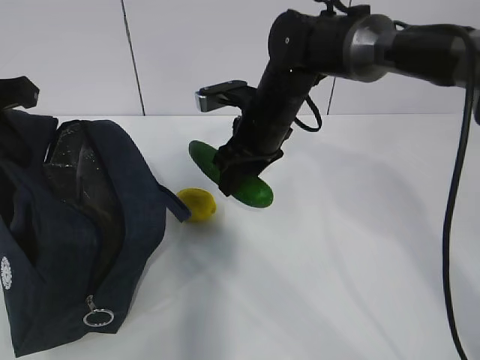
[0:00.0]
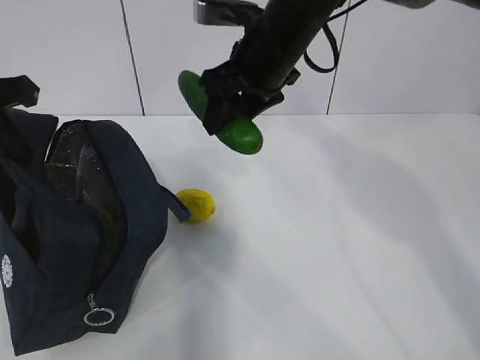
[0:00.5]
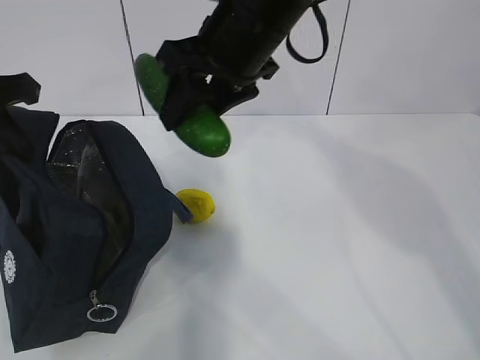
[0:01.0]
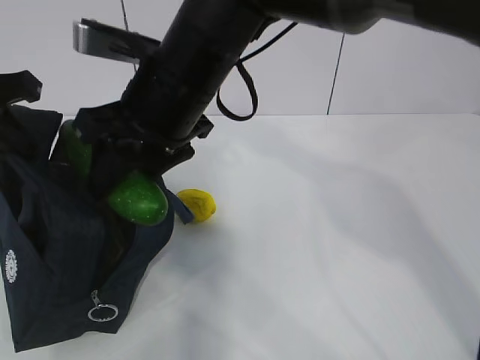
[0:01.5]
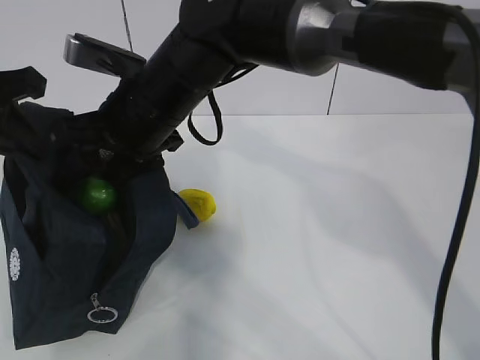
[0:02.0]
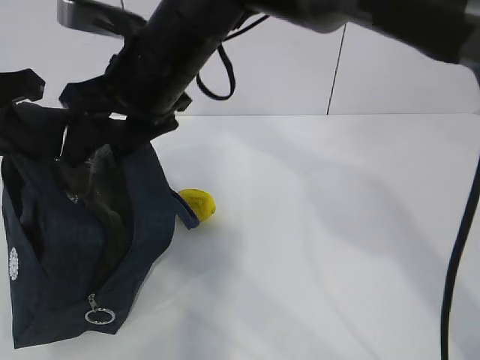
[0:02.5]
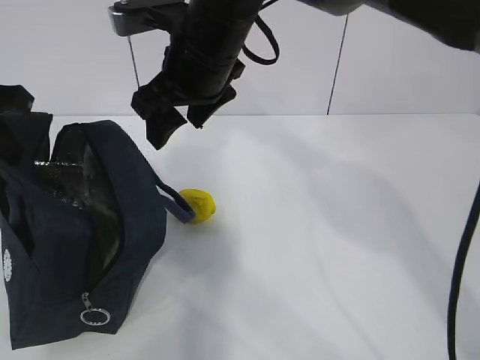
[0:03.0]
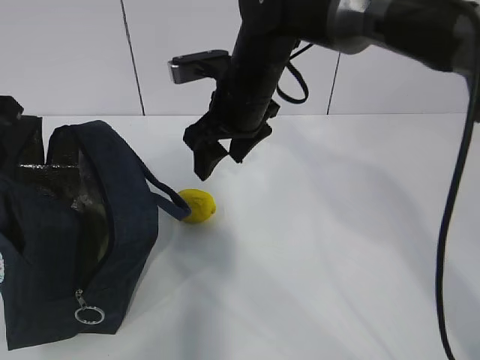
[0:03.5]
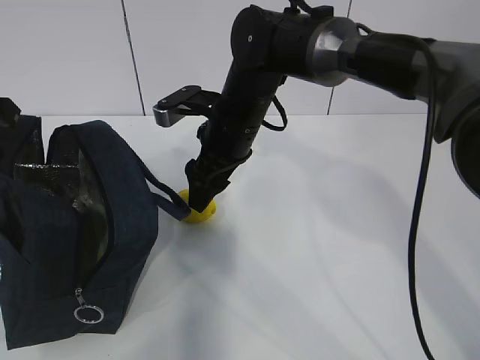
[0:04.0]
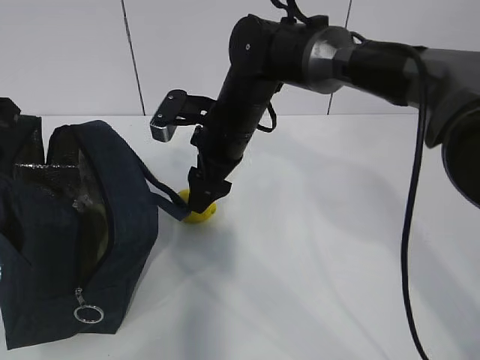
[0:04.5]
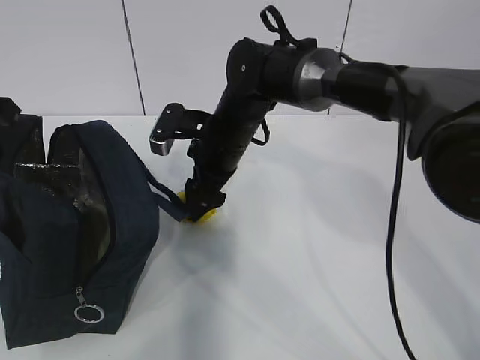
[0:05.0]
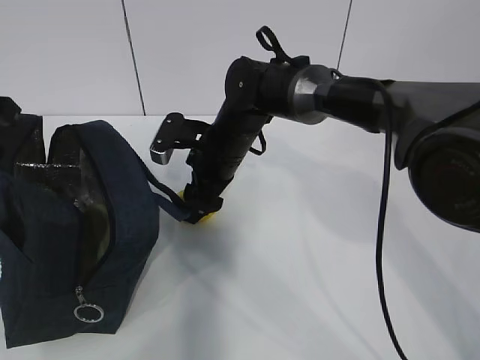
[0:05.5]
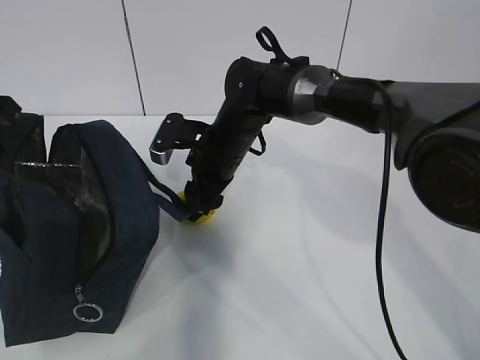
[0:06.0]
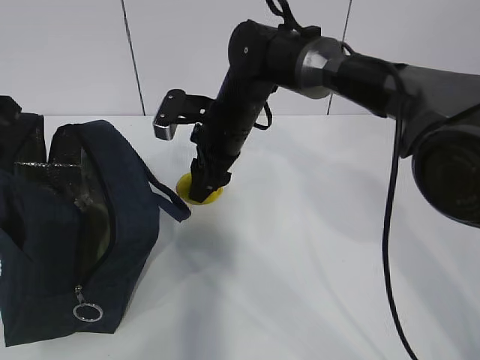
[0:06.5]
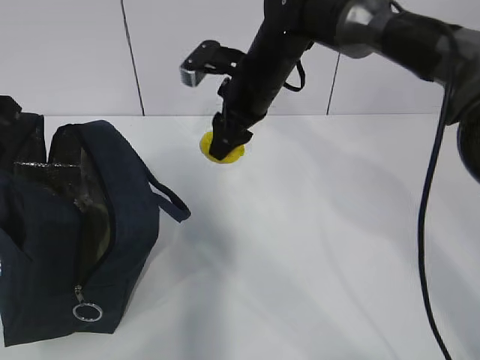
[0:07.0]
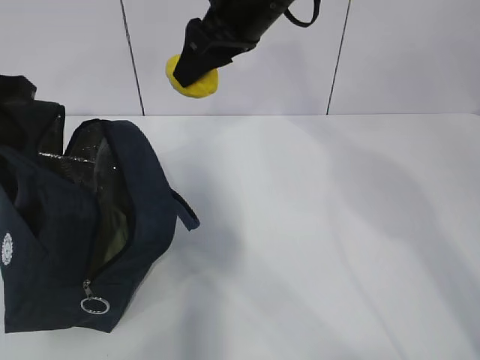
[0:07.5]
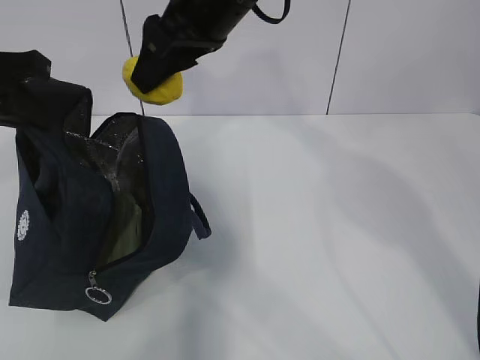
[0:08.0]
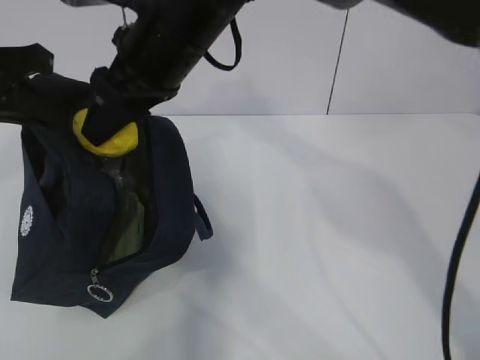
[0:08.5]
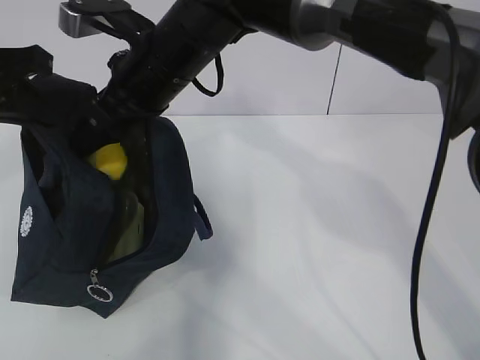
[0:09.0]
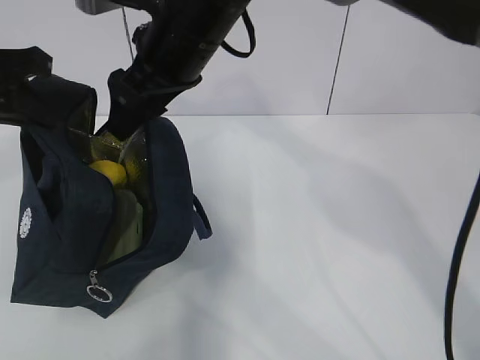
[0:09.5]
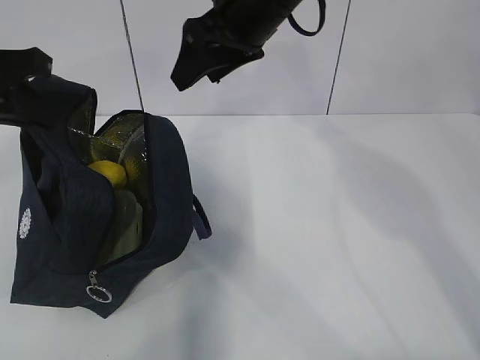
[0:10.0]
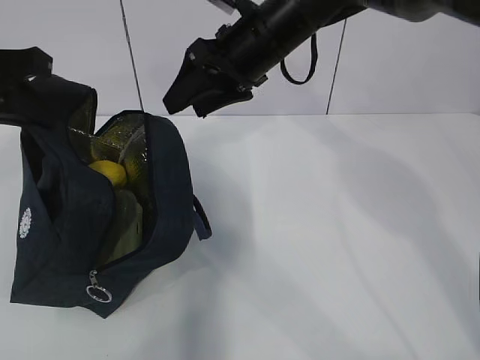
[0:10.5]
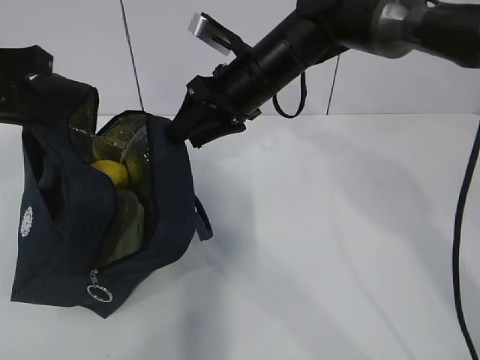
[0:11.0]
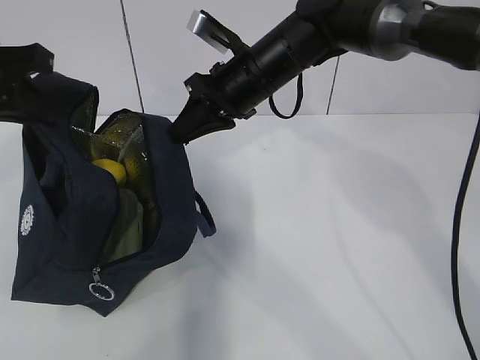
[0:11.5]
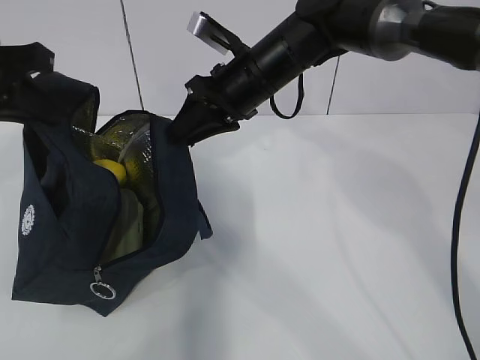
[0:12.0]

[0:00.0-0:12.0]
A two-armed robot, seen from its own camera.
Step, 0:03.0 to 0:05.0: Grab the lunch bag with your right hand.
Step, 0:06.0 to 0:11.0: Move the lunch bag to the right.
0:00.0 to 0:02.0: The right gripper shifts approximately 15 cm to the left, backward and upward.
0:02.0 to 0:04.0: The right gripper moves to the right, forward and downward, approximately 10 cm.
0:04.0 to 0:06.0: The right gripper moves downward, some 5 cm.
0:06.0 to 0:08.0: The right gripper heads upward, covering about 20 cm.
0:08.0 to 0:10.0: The right gripper changes place by some 5 cm.
0:10.0 to 0:12.0: The right gripper goes about 10 cm downward, and closes up.

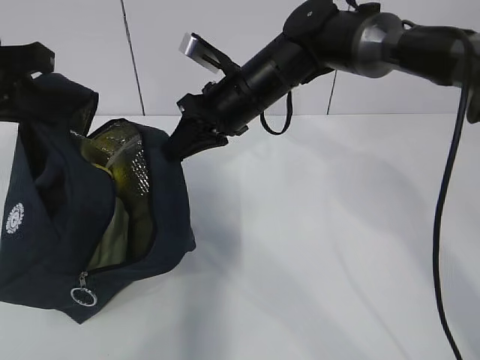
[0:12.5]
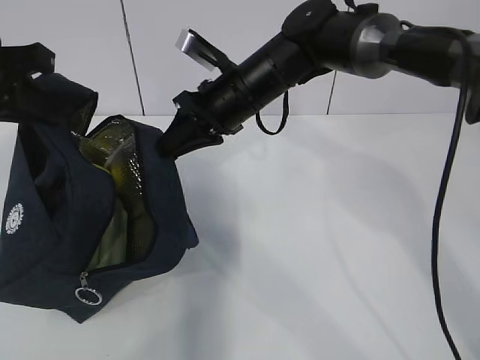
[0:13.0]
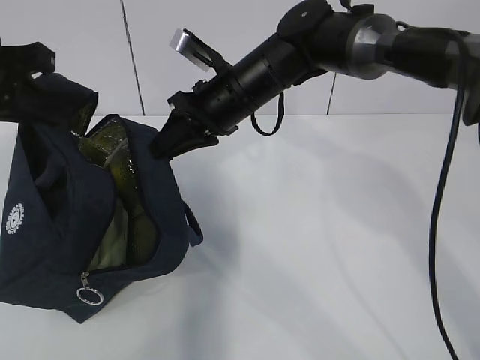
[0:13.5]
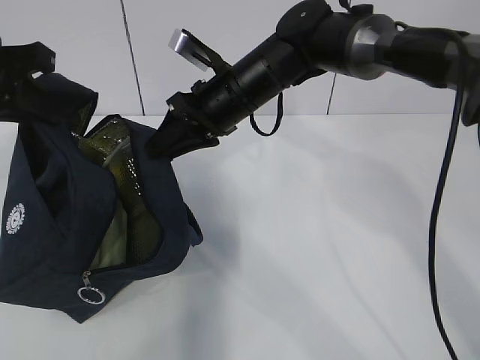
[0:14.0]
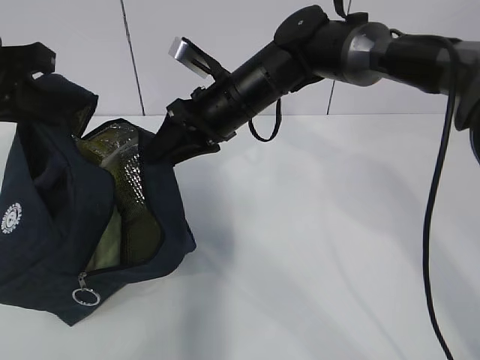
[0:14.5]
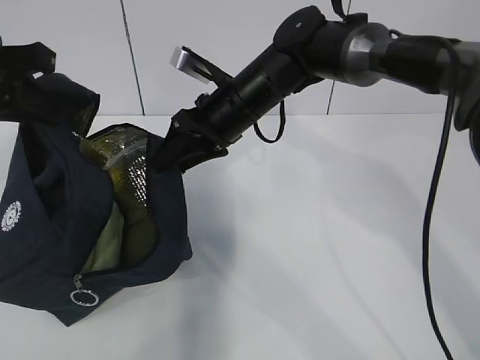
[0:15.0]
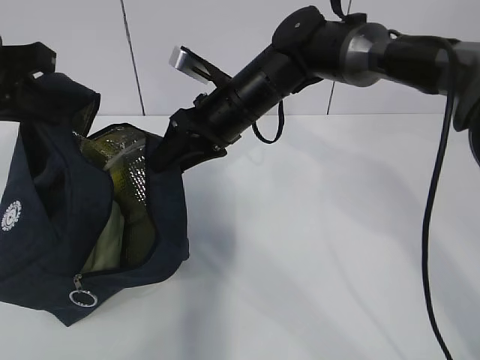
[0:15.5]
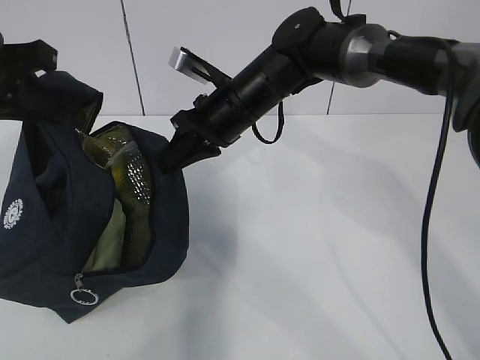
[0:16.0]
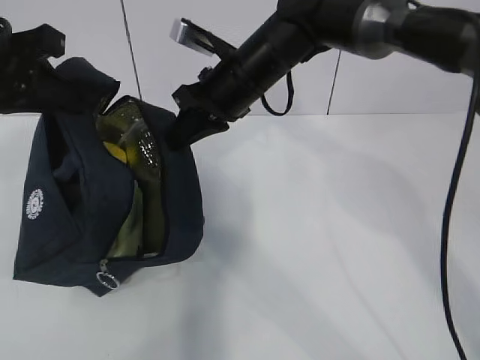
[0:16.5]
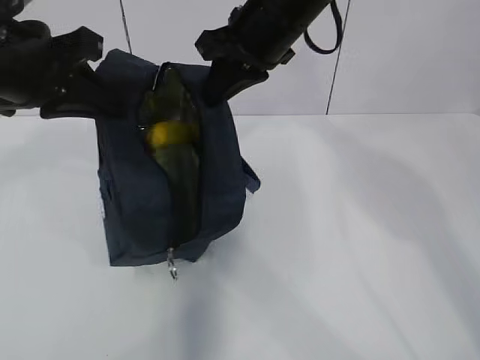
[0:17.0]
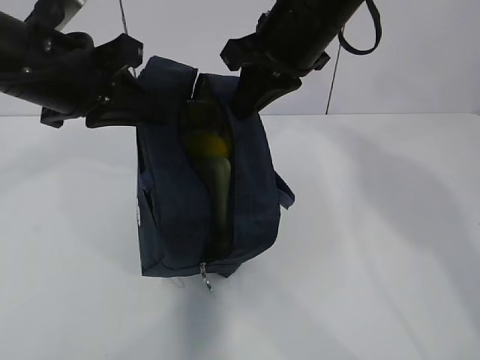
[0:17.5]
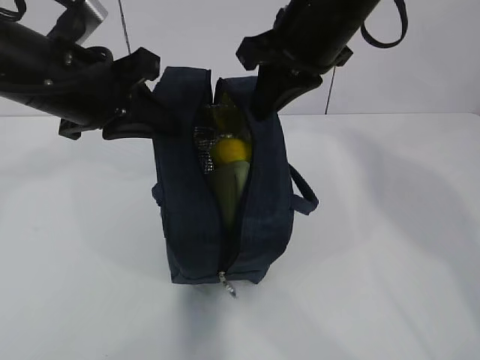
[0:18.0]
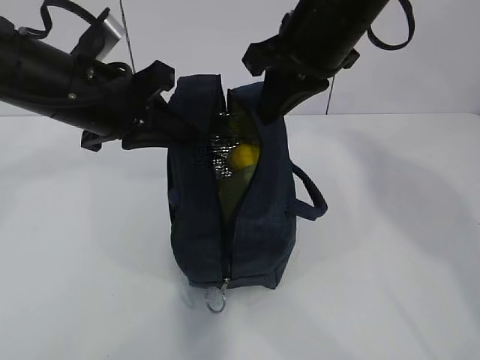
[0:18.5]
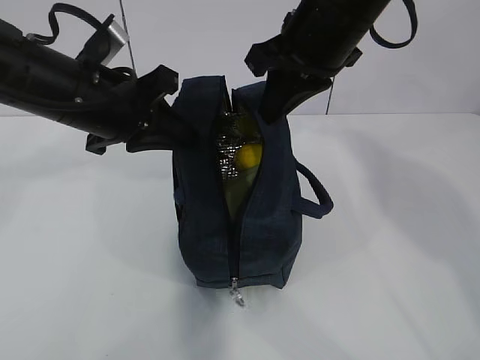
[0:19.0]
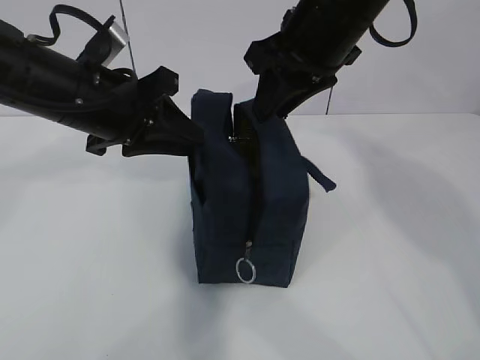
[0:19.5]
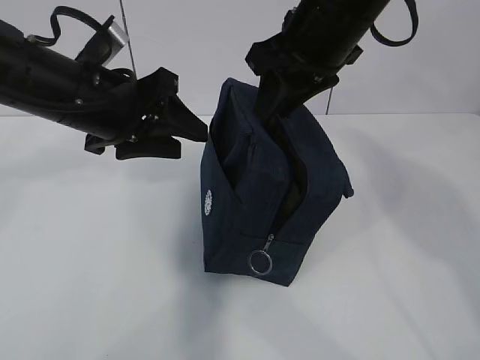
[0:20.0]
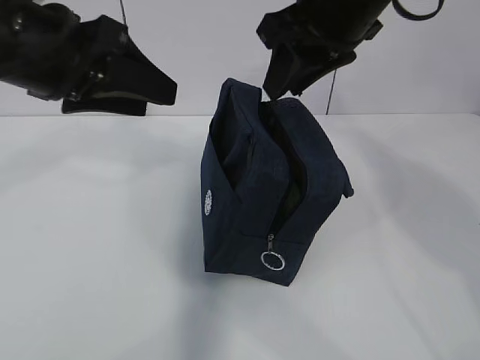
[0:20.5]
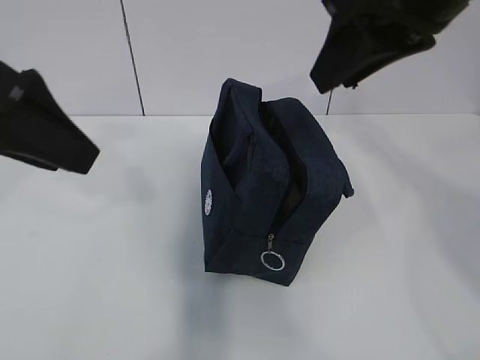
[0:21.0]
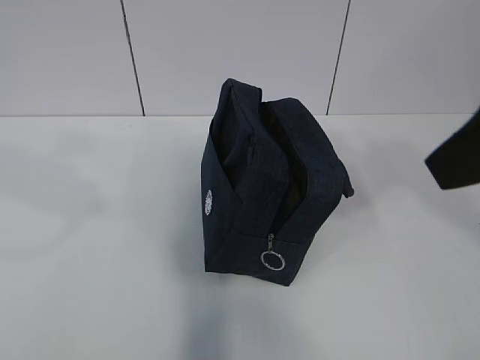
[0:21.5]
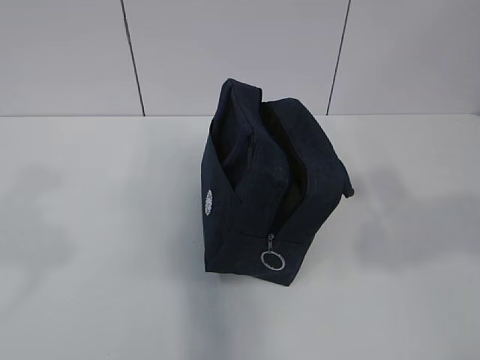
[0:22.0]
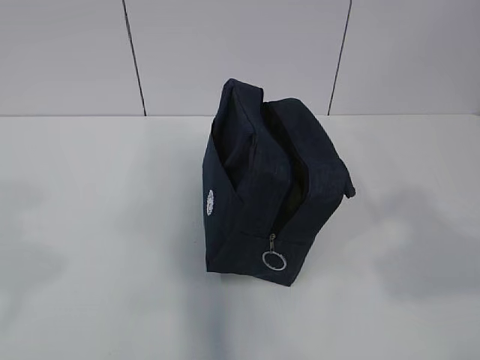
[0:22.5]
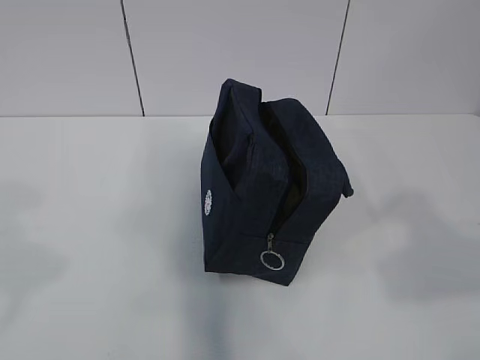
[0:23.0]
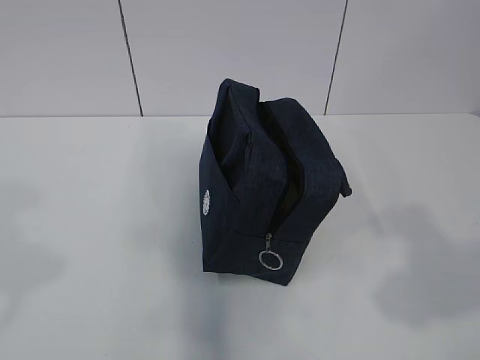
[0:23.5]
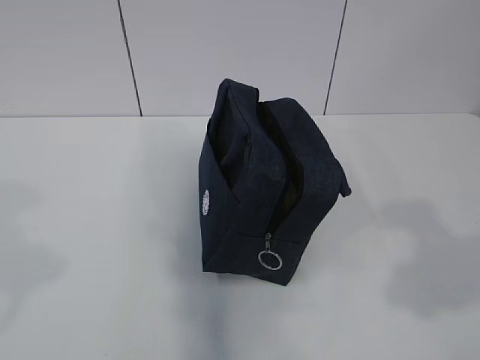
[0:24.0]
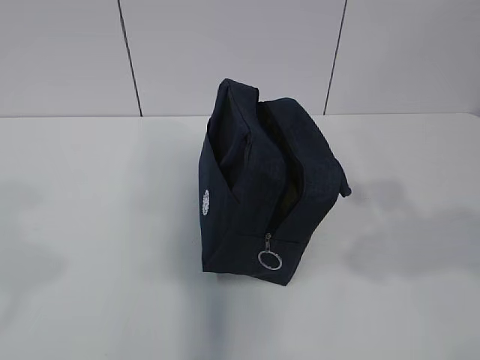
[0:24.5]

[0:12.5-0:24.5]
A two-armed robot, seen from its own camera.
0:12.5 to 0:14.5: The right gripper opens its fingers.
0:14.5 to 0:16.5: The right gripper closes up.
0:16.5 to 0:18.5: The right gripper is displaced upward, backward and to the right by roughly 15 cm; the left gripper moves to the right and downward, some 10 cm.
0:18.5 to 0:20.5: The left gripper heads upward, covering about 5 cm, and opens its fingers; the right gripper opens.
0:20.5 to 0:22.5: The left gripper is displaced backward and to the left by about 25 cm. Meanwhile the right gripper travels backward and to the right by approximately 35 cm.
0:22.5 to 0:24.5: The right gripper heads forward, covering some 5 cm.

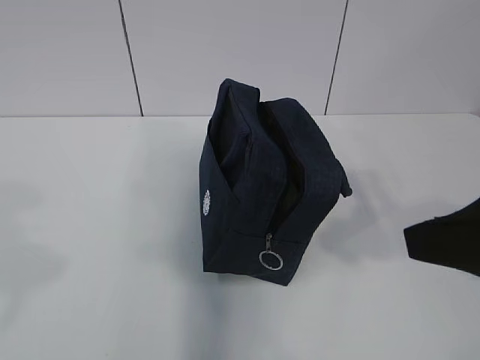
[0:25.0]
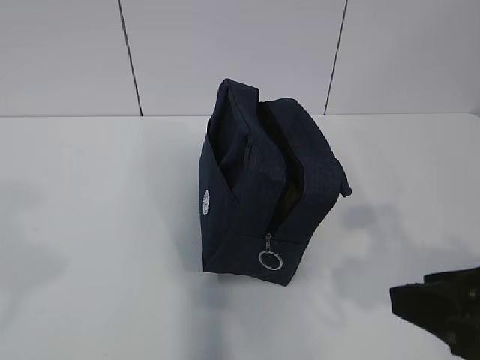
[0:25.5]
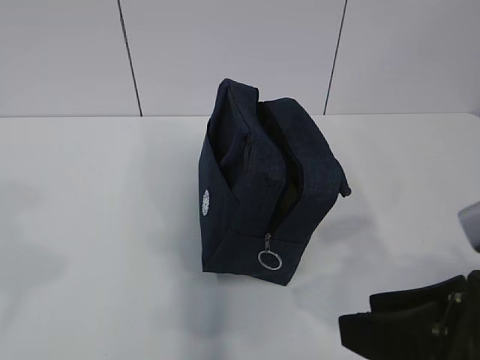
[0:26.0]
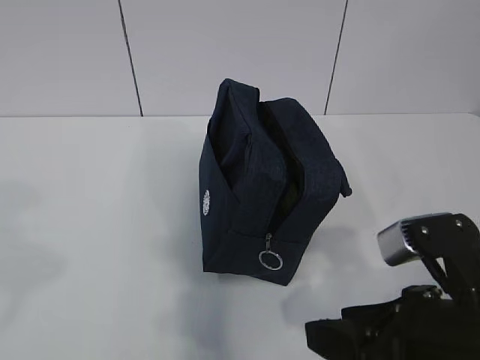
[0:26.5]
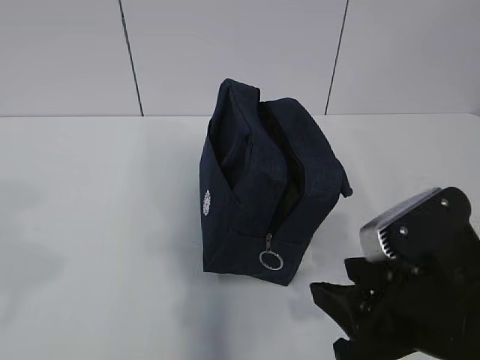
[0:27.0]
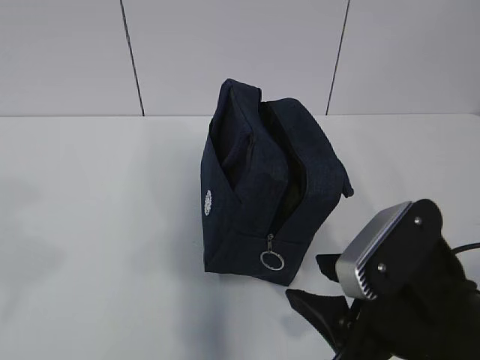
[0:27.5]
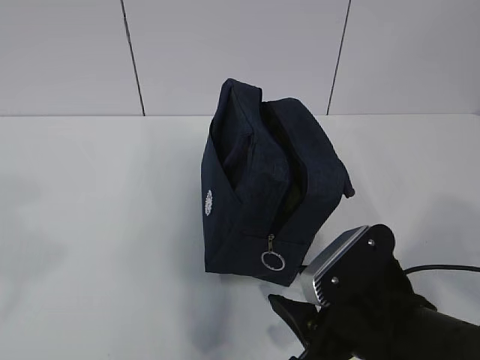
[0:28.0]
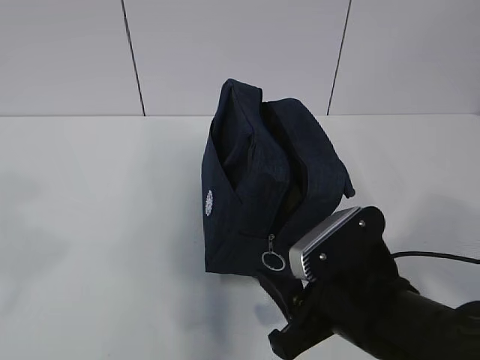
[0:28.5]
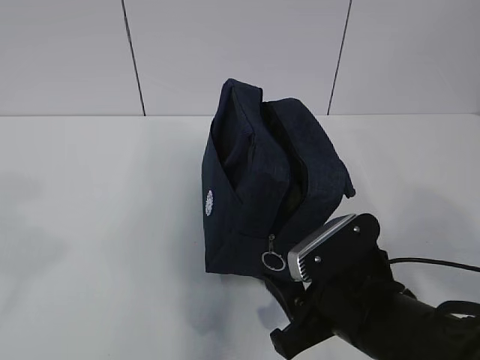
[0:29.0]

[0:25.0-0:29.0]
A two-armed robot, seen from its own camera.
0:25.0 to 0:27.0: The right gripper heads downward and to the left, covering some 15 cm.
0:27.0 to 0:29.0: The right gripper is displaced downward by roughly 5 cm.
